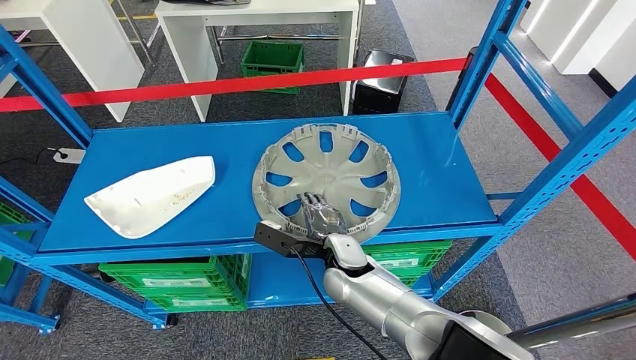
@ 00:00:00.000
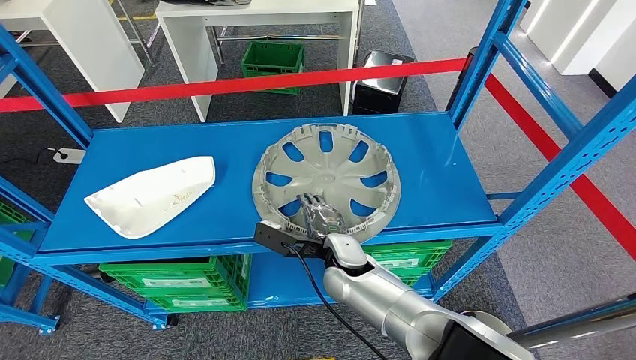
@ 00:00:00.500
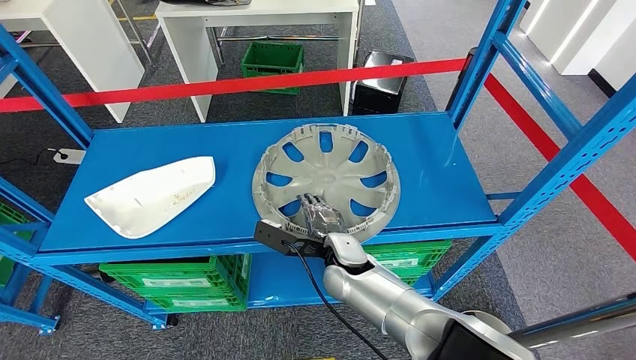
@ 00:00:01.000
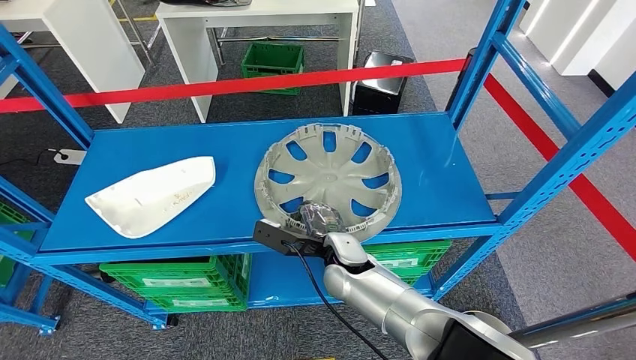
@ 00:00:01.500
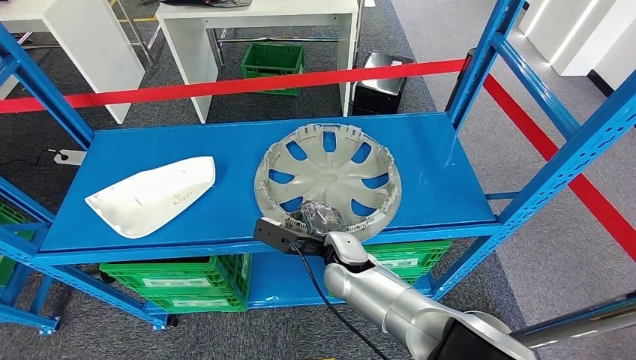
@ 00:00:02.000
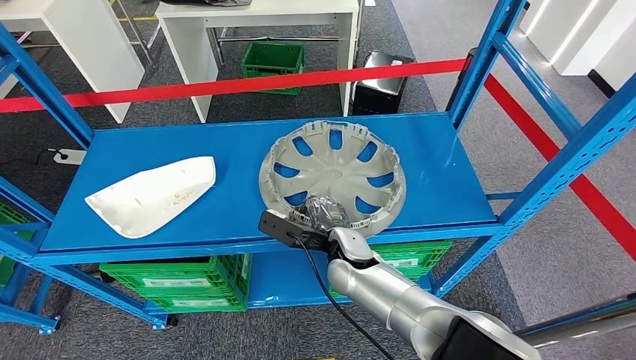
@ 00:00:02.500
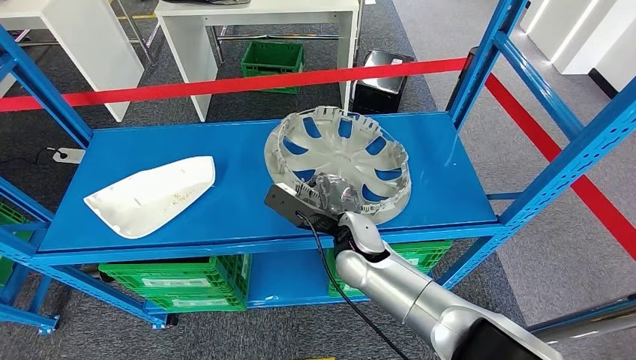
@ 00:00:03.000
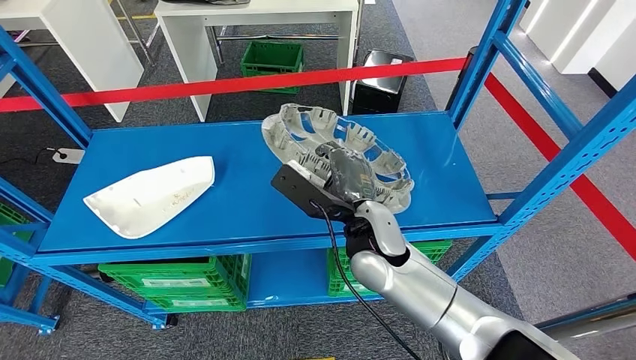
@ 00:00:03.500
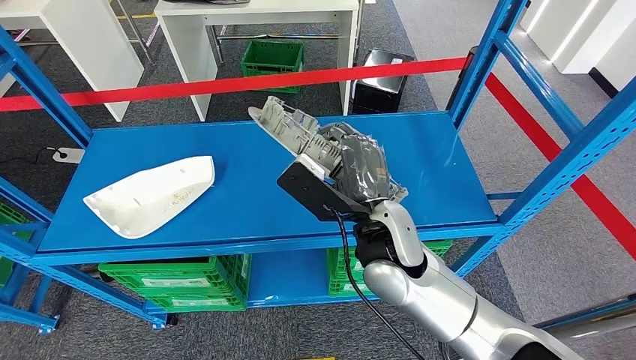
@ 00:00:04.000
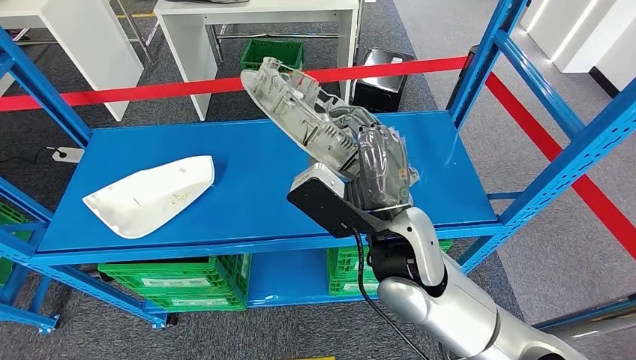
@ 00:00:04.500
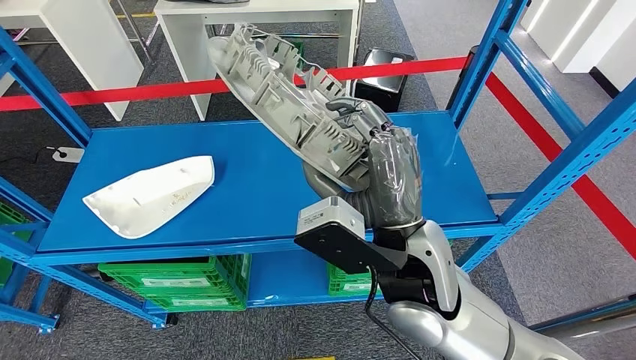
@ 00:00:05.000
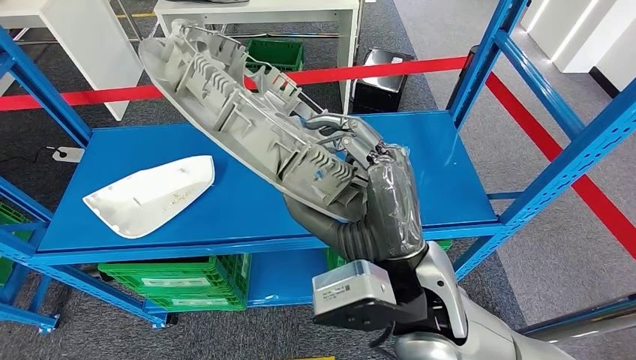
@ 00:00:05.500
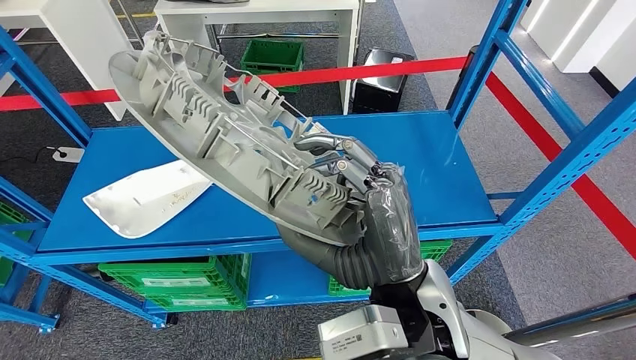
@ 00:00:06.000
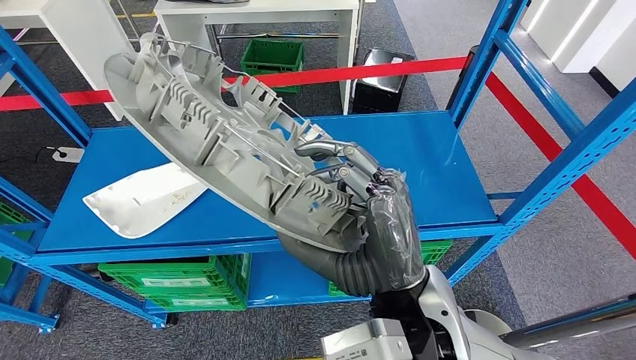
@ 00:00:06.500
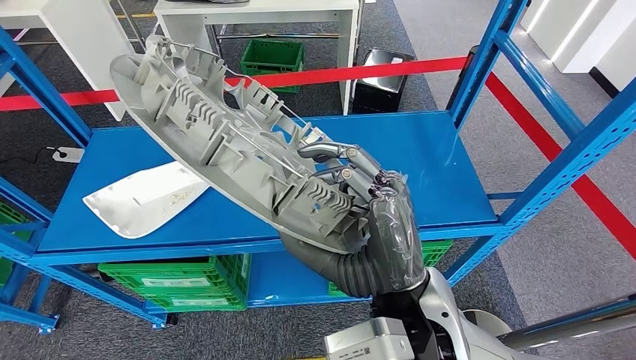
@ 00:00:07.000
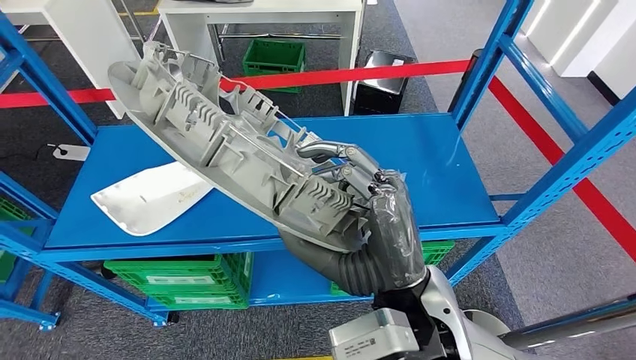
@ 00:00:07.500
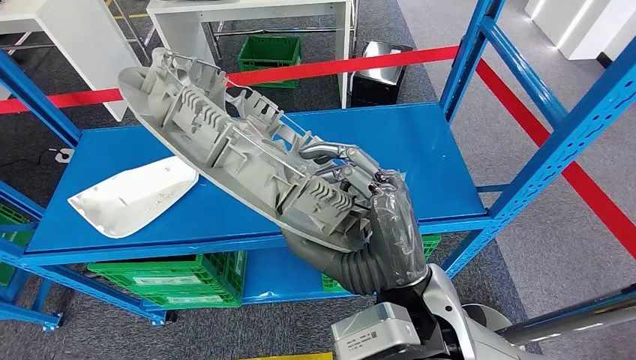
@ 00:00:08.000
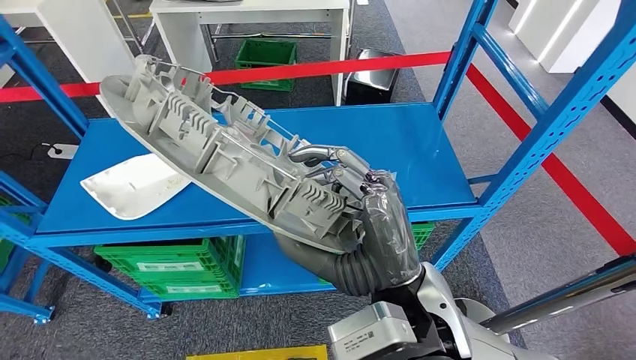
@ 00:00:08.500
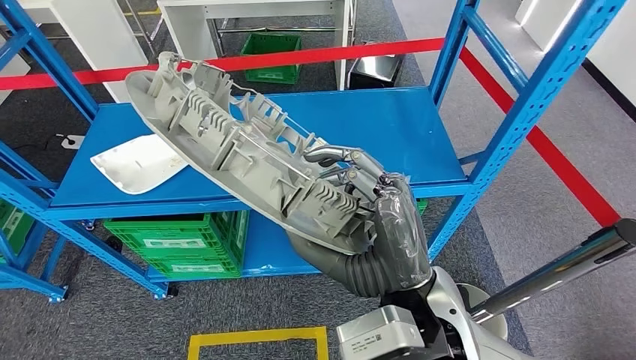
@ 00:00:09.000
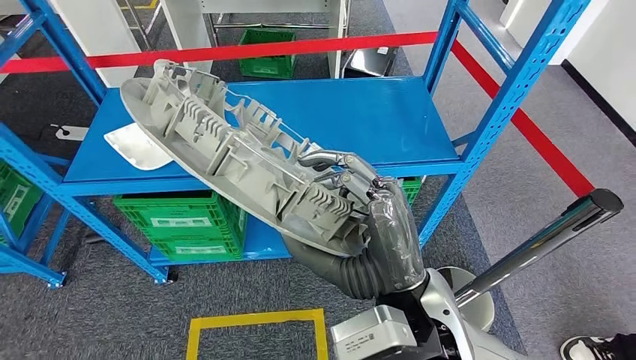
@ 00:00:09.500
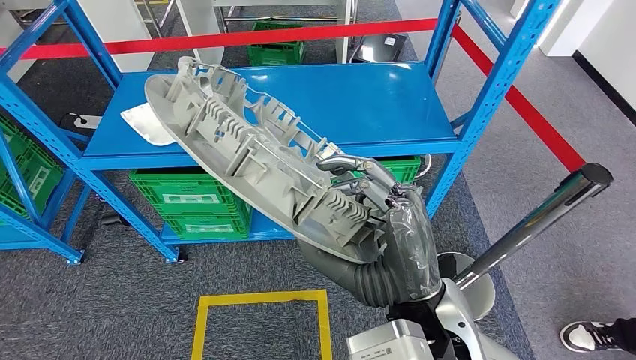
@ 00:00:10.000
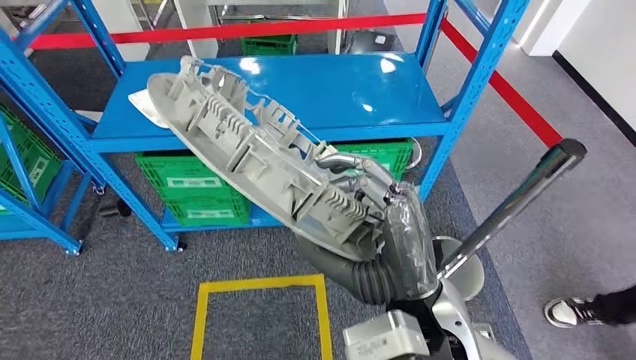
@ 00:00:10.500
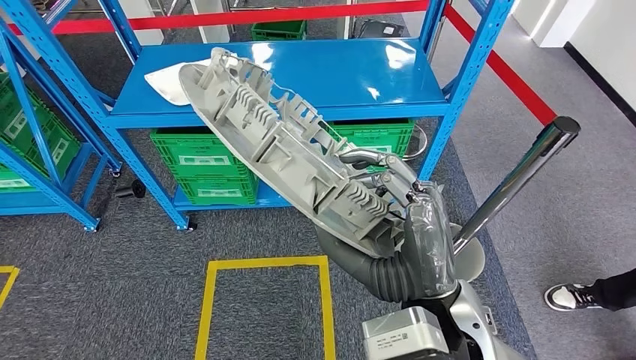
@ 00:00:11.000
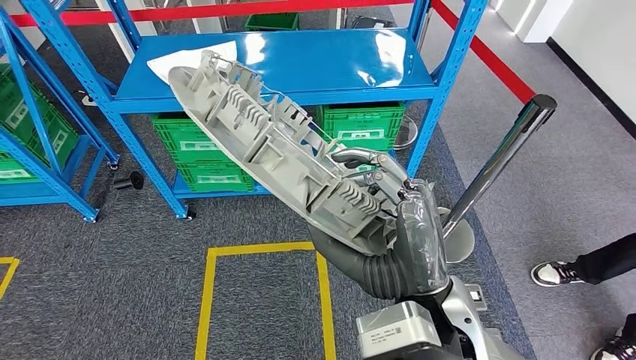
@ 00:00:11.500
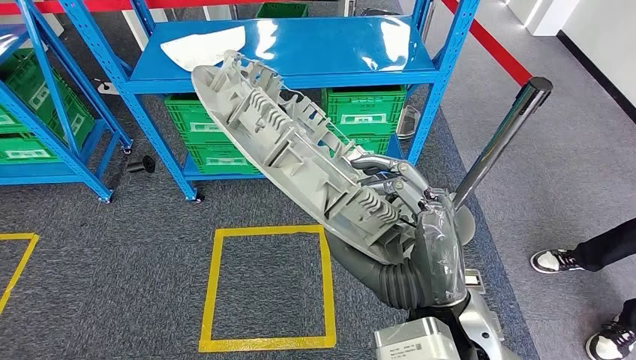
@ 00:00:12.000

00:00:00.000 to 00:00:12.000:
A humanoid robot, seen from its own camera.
Step, 00:00:00.000 to 00:00:04.500: Pick up the large material from the shelf.
00:00:00.000 to 00:00:02.000: Both hands stay about where they are.
00:00:02.000 to 00:00:04.000: The right hand travels upward by roughly 15 cm.

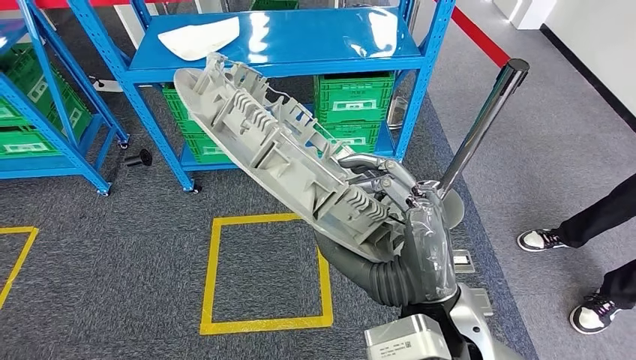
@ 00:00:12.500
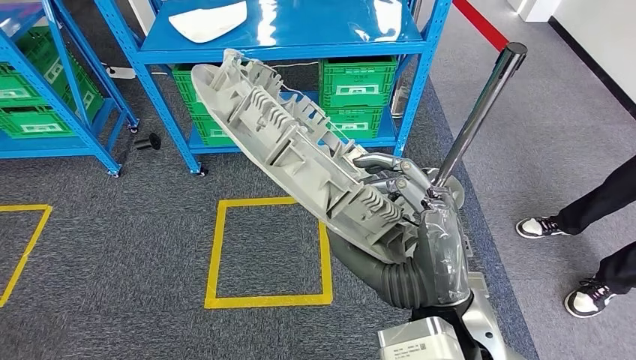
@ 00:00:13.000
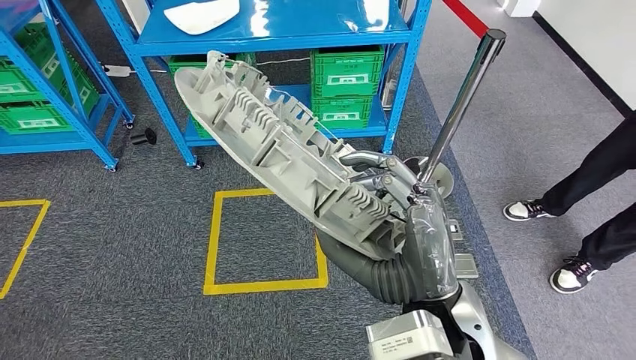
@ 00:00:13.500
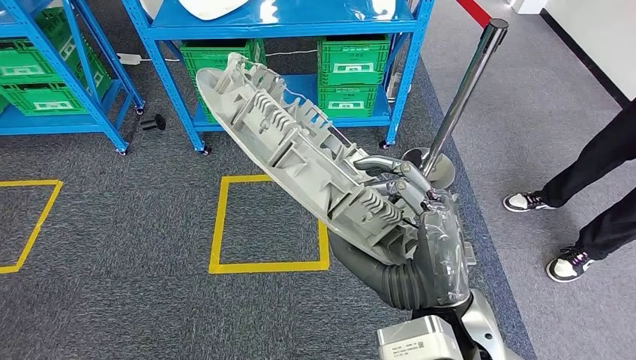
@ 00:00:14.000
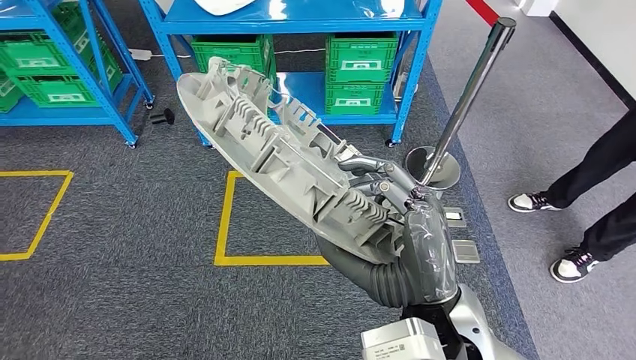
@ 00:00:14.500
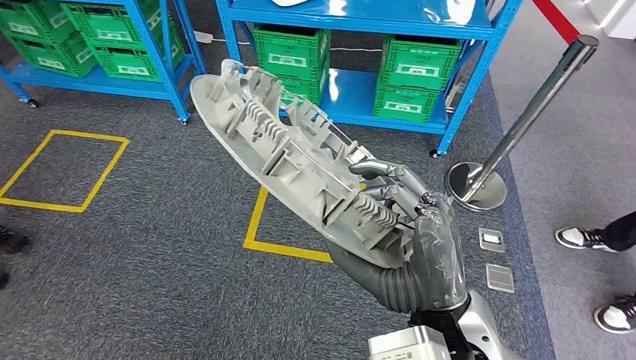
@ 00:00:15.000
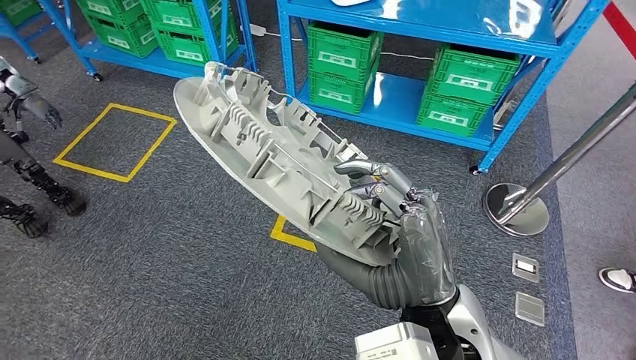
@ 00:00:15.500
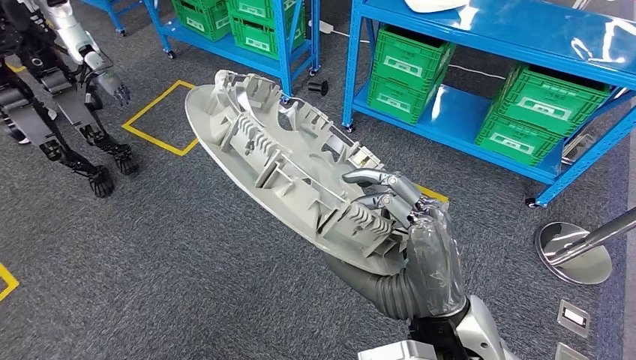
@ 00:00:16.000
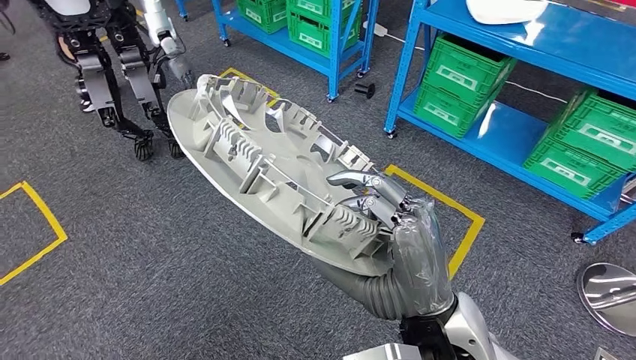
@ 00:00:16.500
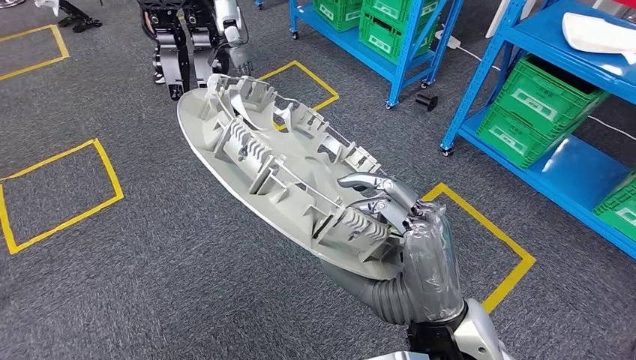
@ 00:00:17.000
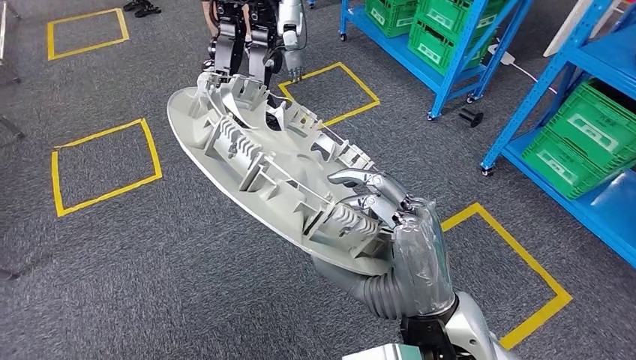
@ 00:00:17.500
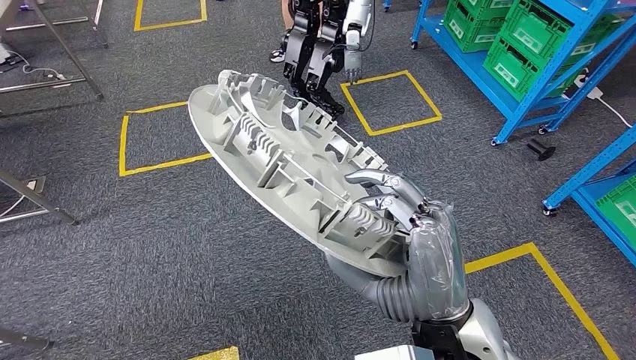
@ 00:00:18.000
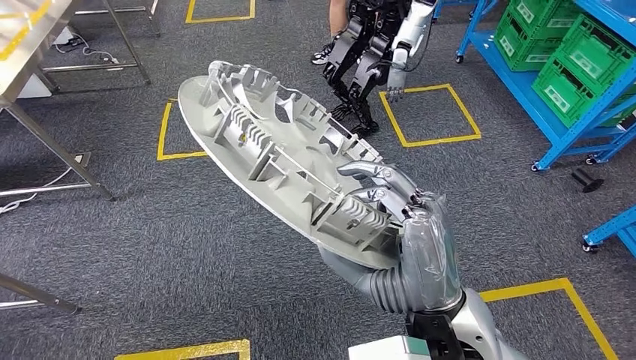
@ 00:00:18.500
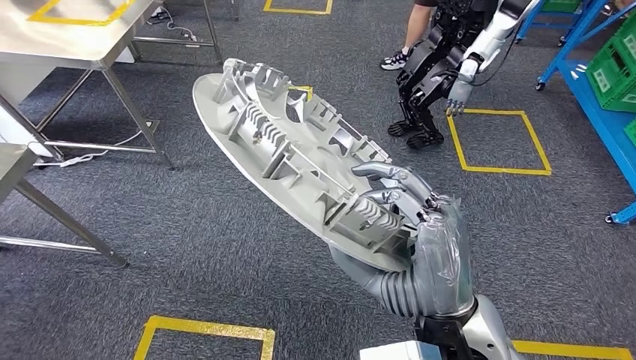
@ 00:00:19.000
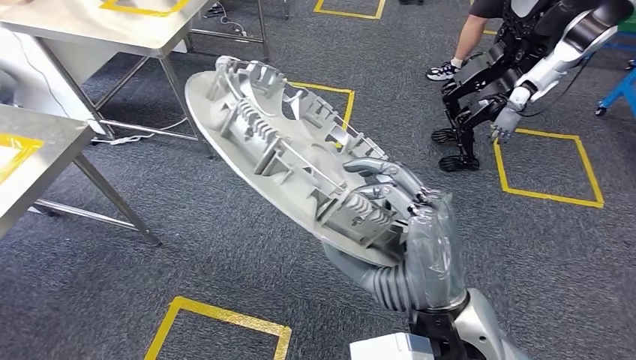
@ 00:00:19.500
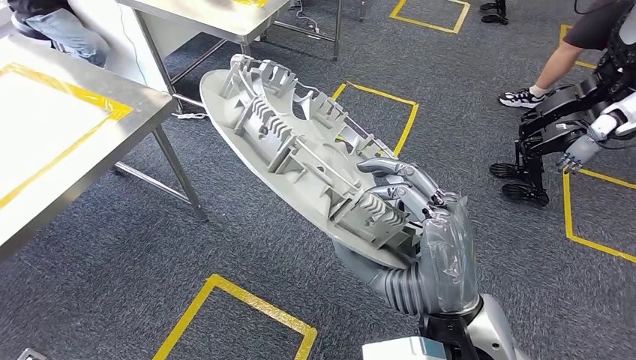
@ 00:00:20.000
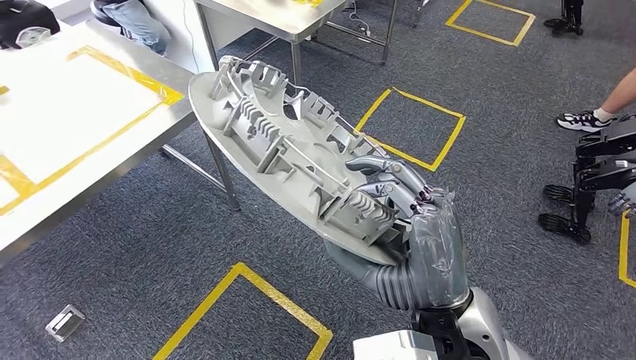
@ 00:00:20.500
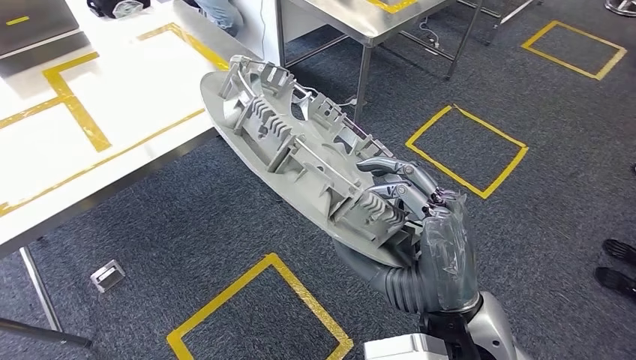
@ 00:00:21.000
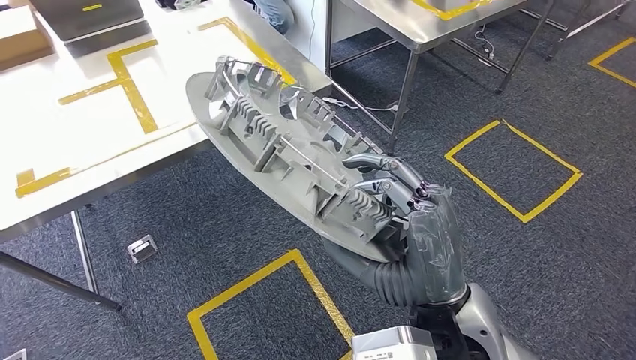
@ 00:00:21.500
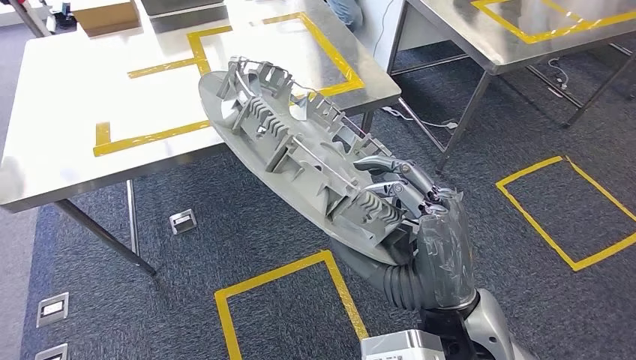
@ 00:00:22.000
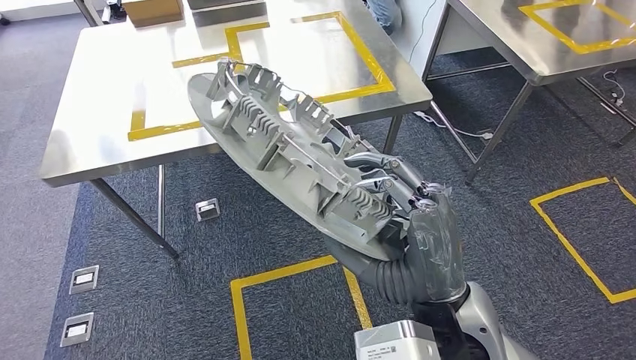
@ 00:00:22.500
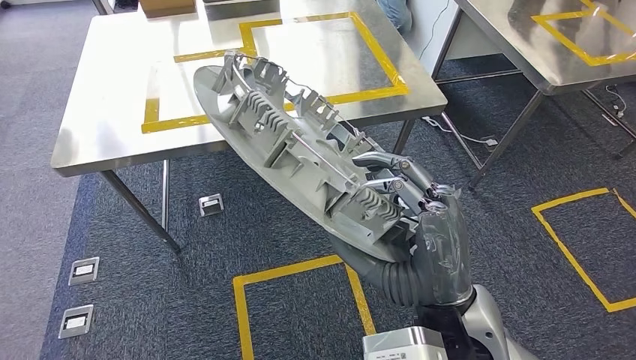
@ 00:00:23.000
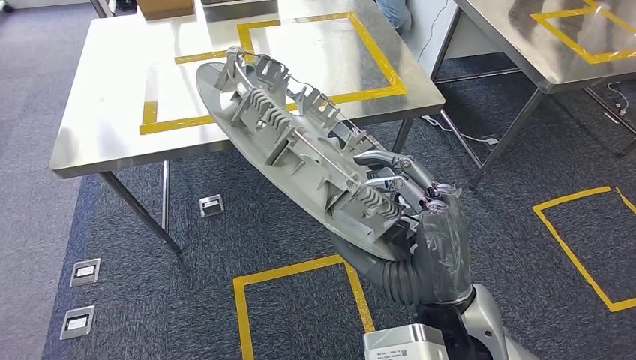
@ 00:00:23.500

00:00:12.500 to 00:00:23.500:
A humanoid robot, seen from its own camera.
Step, 00:00:12.500 to 00:00:23.500: Move the large material to the workbench.
